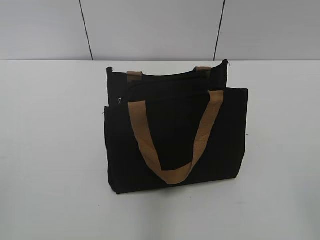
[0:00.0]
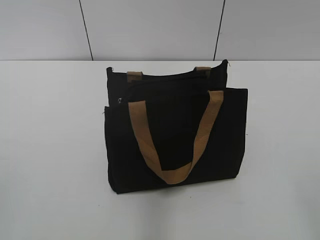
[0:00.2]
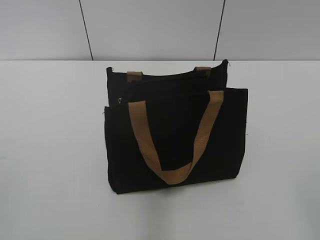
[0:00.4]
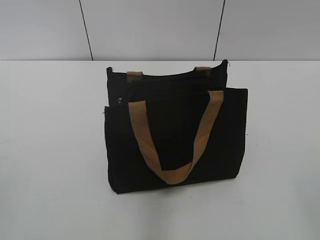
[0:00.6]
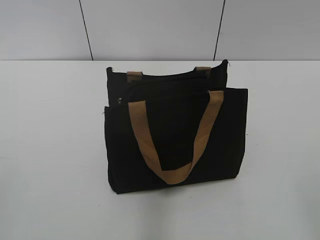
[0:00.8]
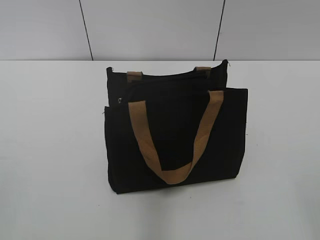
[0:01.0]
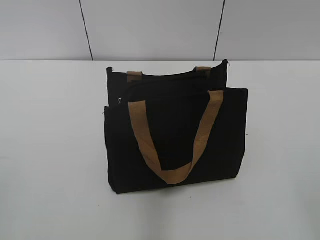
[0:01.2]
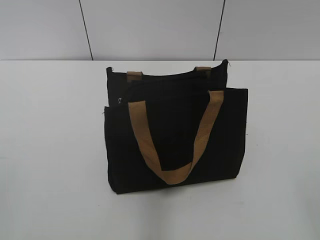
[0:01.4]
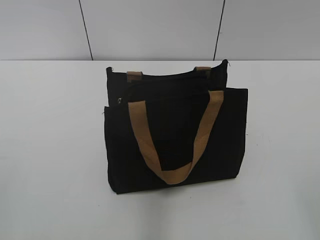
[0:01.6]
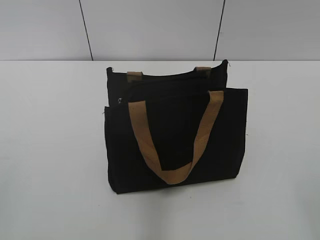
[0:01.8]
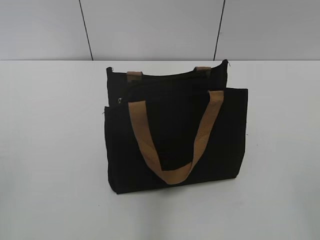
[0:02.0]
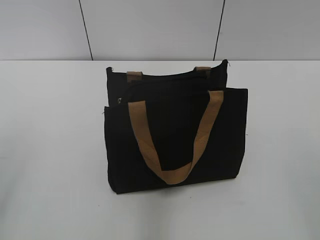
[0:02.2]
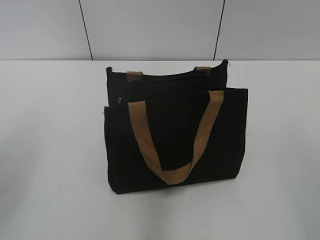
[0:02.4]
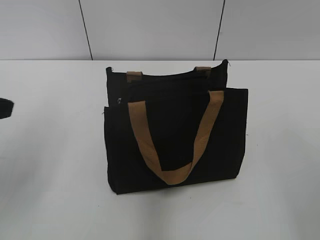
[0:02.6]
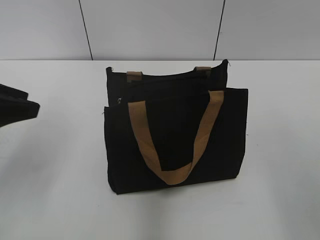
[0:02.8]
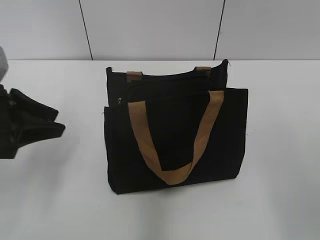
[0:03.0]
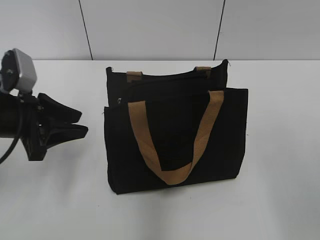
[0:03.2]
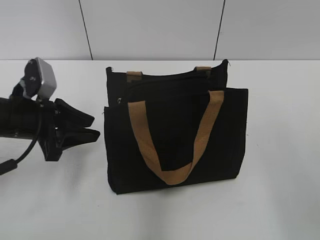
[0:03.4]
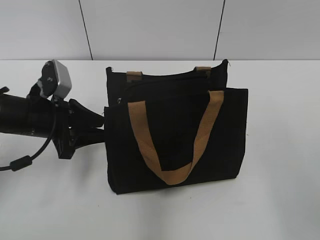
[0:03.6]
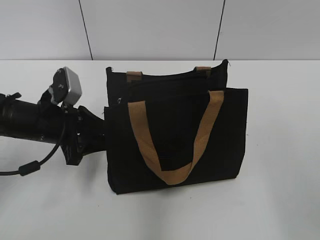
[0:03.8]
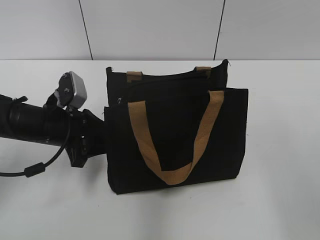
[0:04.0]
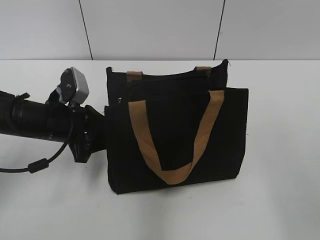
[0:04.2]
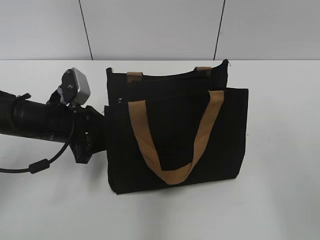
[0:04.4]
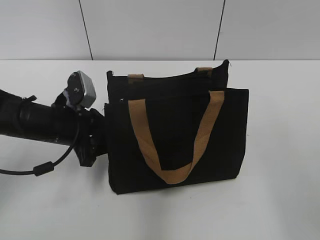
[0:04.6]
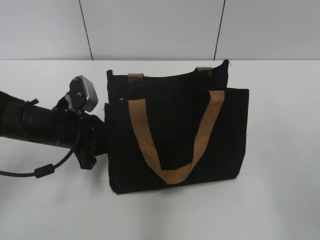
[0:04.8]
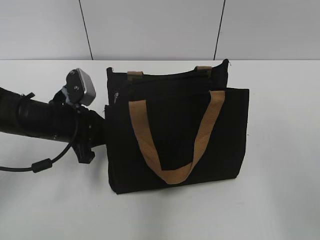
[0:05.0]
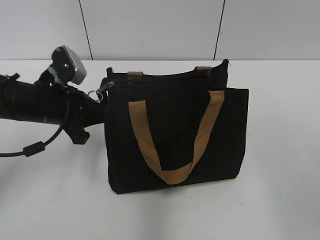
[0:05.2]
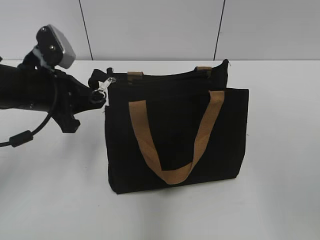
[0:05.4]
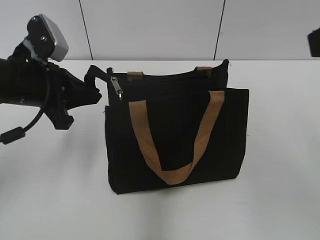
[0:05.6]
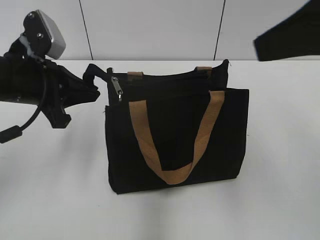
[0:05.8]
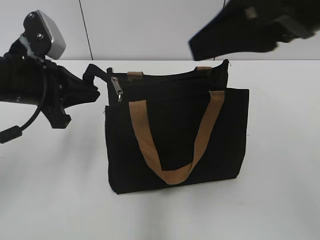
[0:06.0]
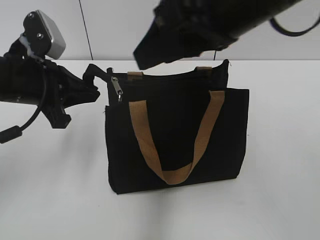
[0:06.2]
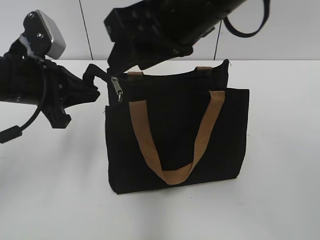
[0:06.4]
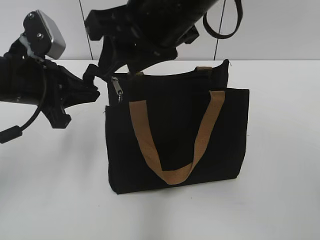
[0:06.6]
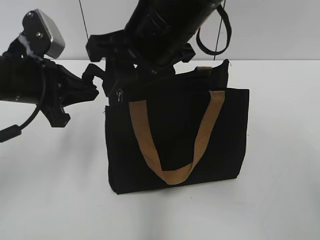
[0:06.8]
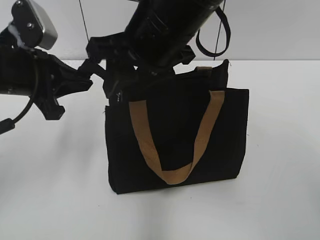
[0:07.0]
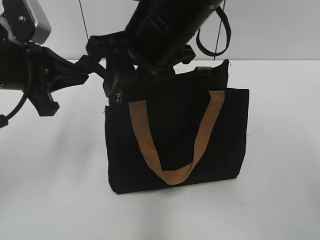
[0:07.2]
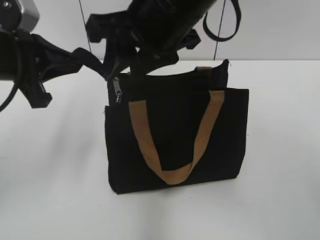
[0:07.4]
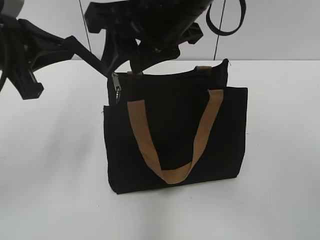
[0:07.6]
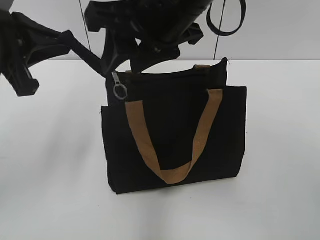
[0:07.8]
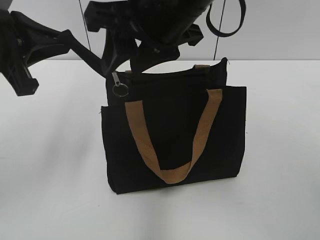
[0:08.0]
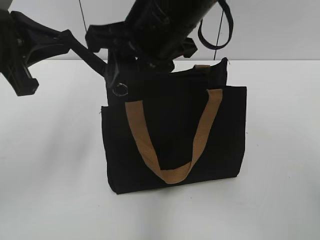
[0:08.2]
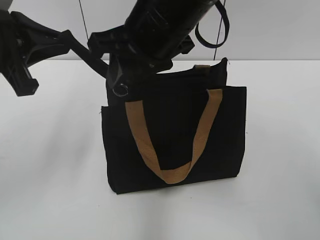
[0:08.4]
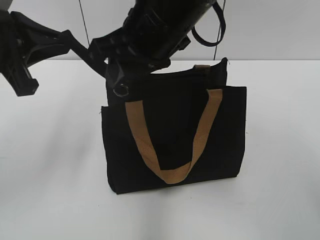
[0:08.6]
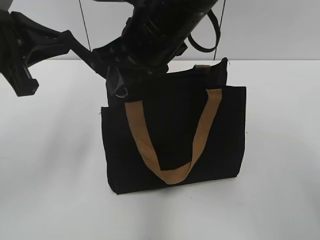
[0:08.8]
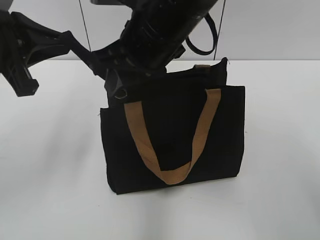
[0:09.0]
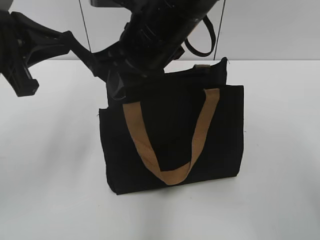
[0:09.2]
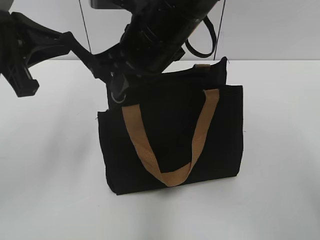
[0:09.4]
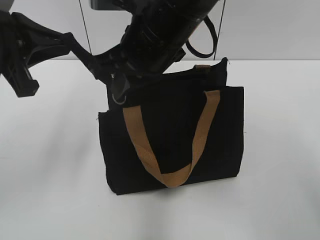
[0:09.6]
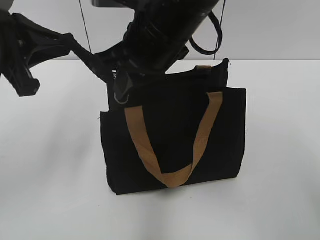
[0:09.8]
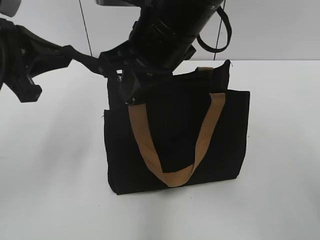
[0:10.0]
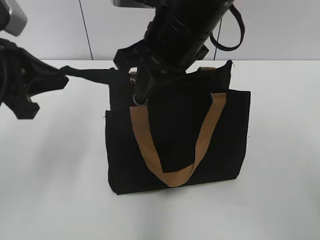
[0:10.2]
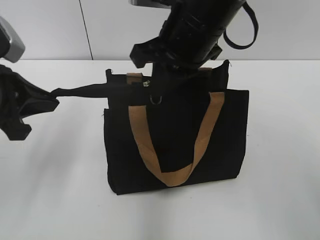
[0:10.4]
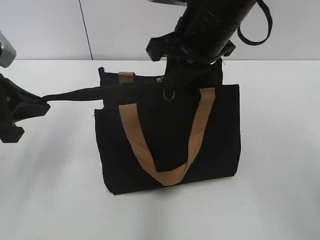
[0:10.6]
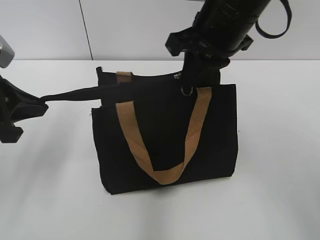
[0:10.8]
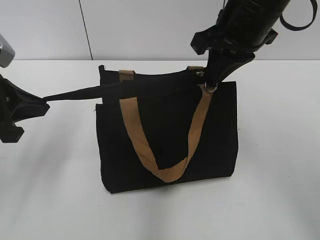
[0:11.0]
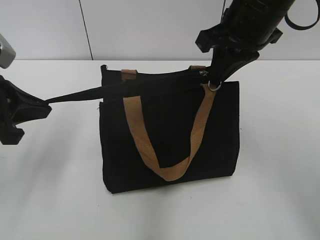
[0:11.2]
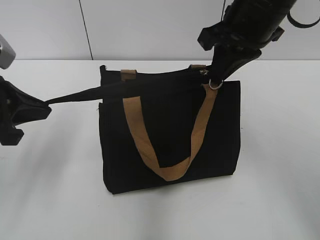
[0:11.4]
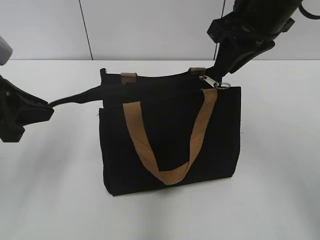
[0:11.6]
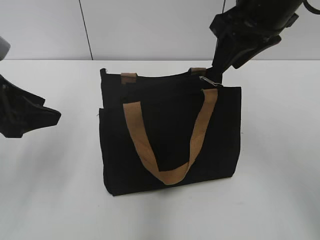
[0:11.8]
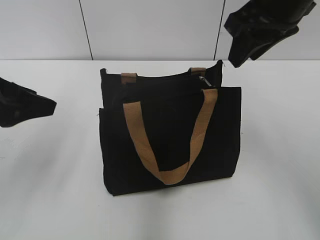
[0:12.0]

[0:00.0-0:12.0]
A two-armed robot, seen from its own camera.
Step, 0:00.0 to 0:11.4: Zip up the bag with your right hand.
0:01.6 to 0:03.0: The left gripper travels forward by some 25 cm.
0:03.0 to 0:04.4: The left gripper heads downward, to the right and forward, covering approximately 15 cm.
0:04.4 to 0:06.0: The left gripper moves upward, about 10 cm, and closes up, while the right gripper moves to the left and forward, about 15 cm.
0:06.0 to 0:07.6: The right gripper shifts approximately 15 cm to the left and forward; the left gripper is displaced upward by roughly 5 cm.
0:07.6 to 0:09.0: The right gripper changes place by roughly 5 cm.
0:09.0 to 0:10.4: The right gripper closes up. The left gripper shifts approximately 5 cm downward.
0:10.4 to 0:12.0: The right gripper goes some 10 cm to the right, and opens its fingers, while the left gripper opens up.

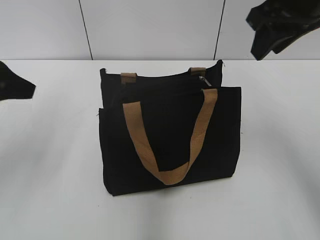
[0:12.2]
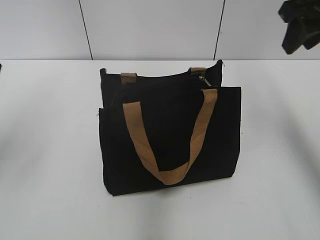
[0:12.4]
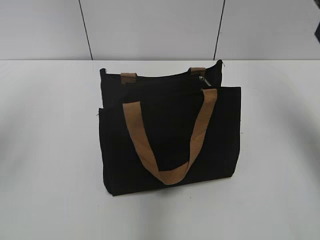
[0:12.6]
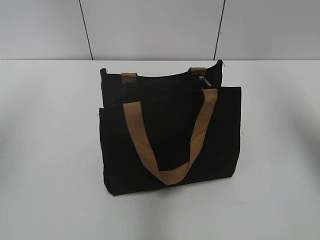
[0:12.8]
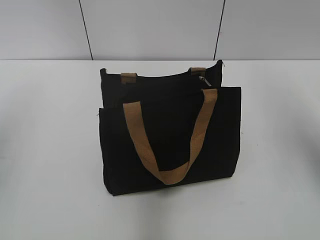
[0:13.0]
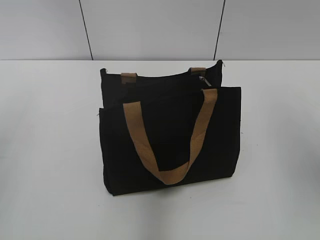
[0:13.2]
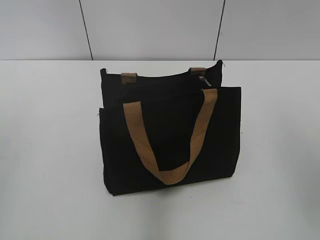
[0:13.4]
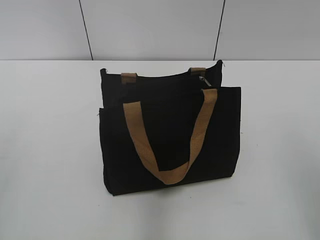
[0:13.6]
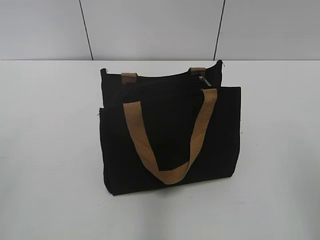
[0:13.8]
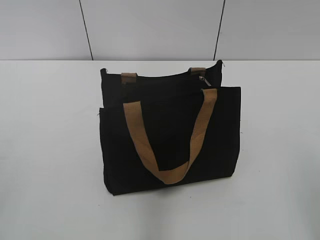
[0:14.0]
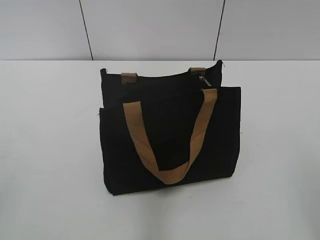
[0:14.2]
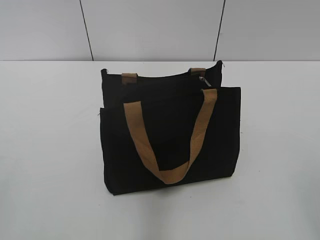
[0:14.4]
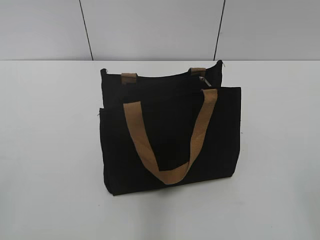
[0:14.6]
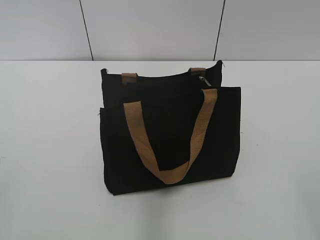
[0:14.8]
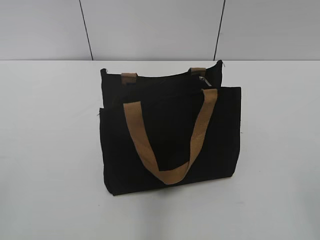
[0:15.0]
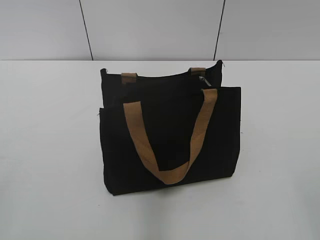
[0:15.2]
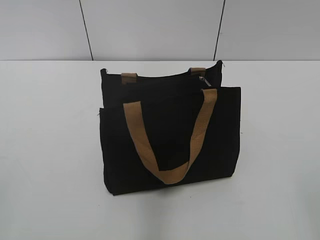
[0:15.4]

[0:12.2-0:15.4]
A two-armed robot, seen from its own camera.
0:12.2 to 0:13.8: The left gripper goes roughly 15 cm backward. Meanwhile the right gripper shifts about 25 cm backward.

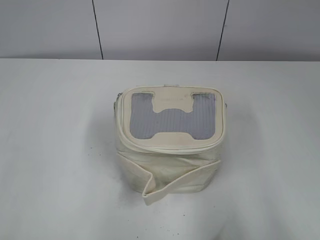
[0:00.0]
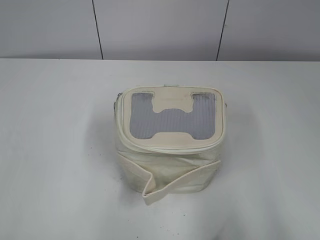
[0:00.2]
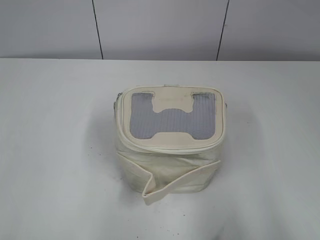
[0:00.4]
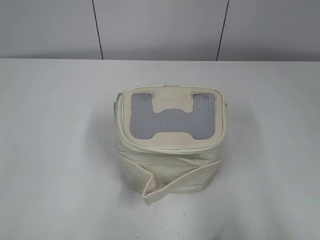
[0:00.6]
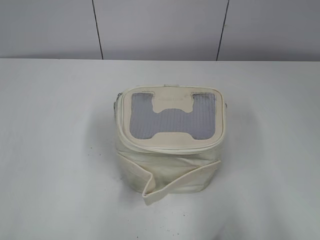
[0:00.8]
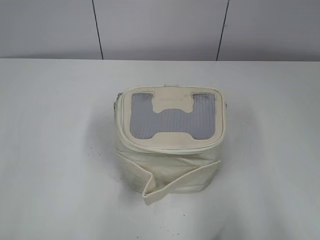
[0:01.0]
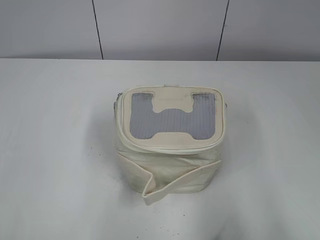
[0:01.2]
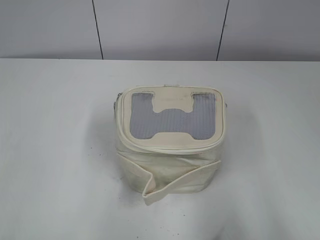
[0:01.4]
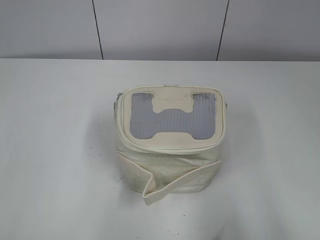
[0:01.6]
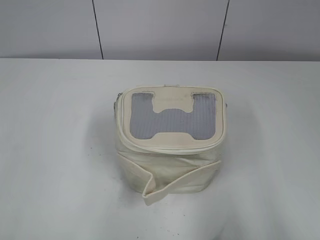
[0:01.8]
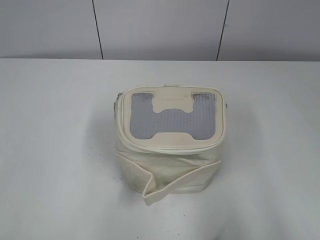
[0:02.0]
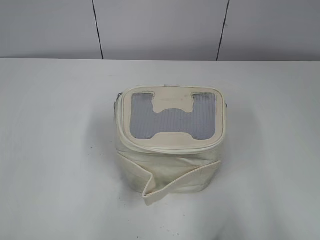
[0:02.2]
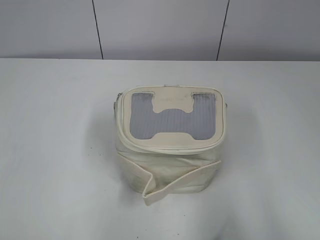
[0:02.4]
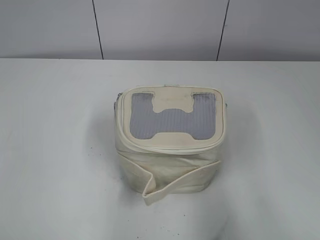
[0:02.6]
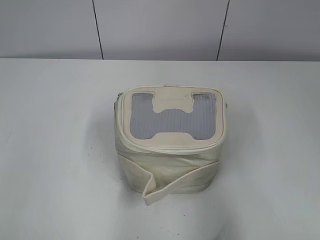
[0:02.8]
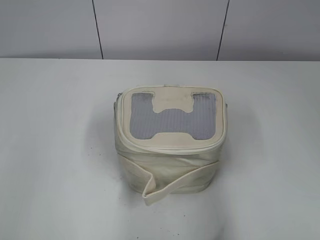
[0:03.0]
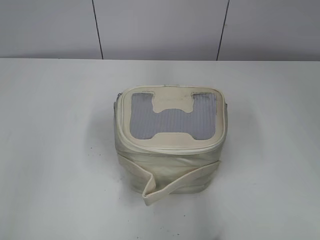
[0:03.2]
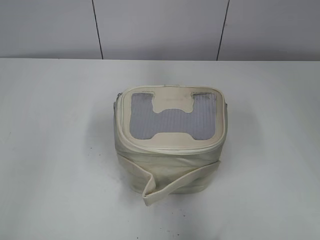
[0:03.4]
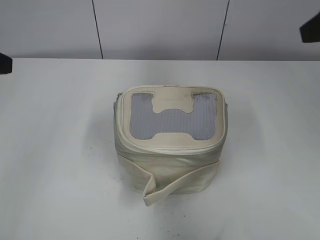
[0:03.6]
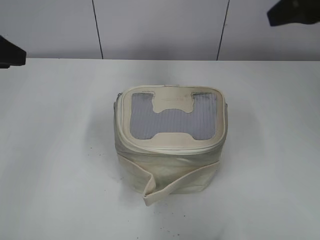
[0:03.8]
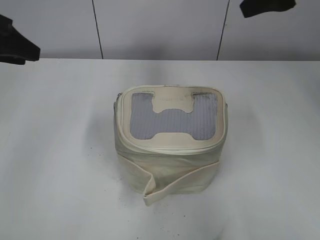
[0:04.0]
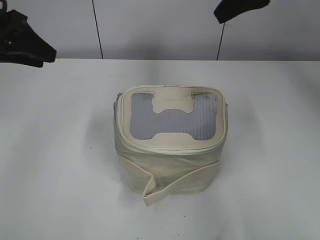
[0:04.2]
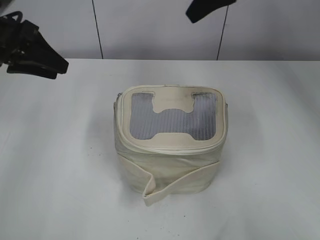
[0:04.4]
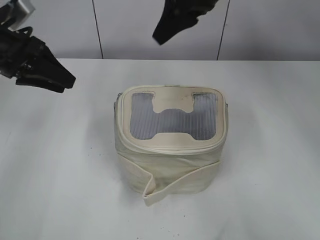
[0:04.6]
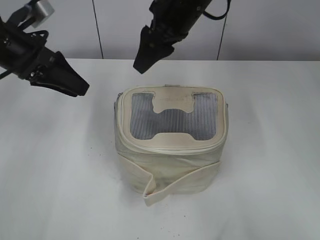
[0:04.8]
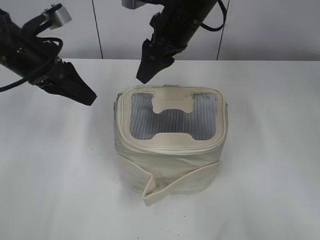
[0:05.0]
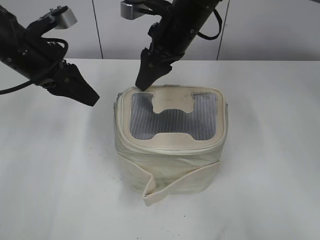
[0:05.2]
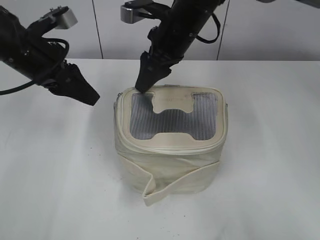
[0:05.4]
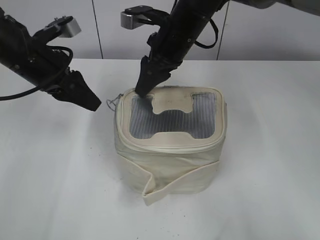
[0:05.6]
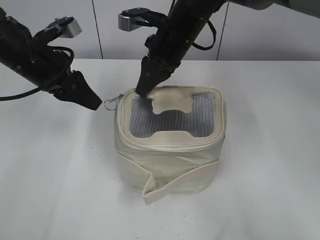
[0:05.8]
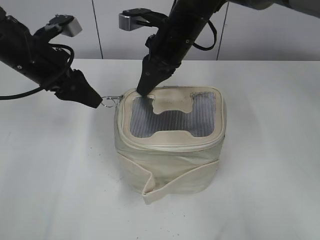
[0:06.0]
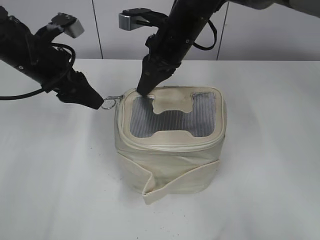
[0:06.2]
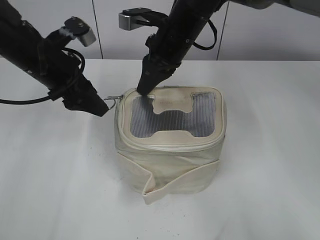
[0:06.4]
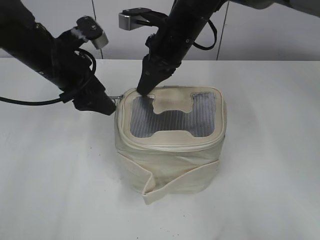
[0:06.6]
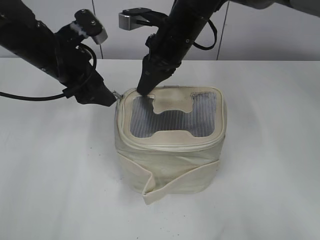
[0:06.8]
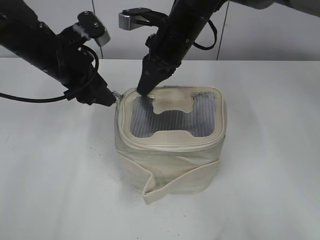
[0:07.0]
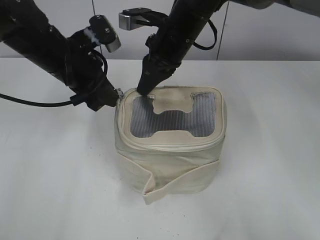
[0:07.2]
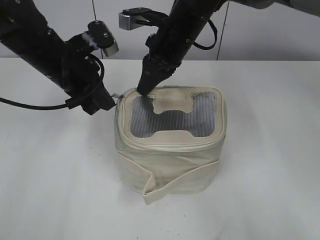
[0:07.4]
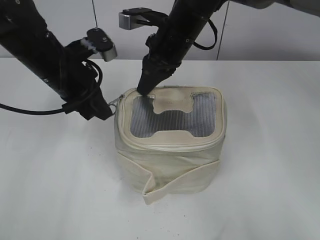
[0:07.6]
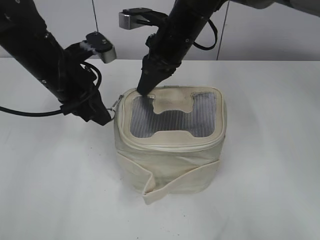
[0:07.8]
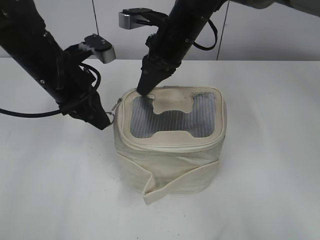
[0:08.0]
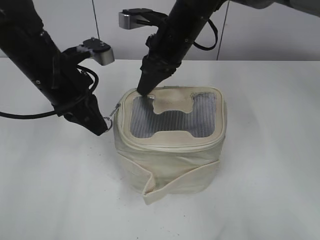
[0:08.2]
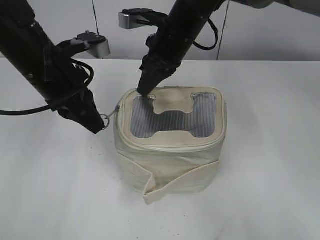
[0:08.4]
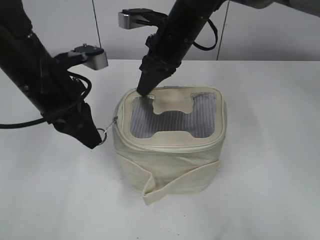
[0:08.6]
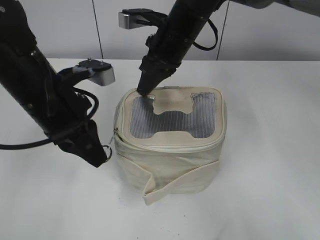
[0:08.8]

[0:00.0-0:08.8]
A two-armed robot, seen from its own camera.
0:01.4 to 0:03.0: The two grippers go about 10 cm forward.
0:03.0 to 0:04.4: The left gripper moves forward, some 25 cm. The right gripper shifts some 35 cm forward and to the left.
0:04.4 to 0:05.8: The left gripper is displaced to the right by roughly 5 cm, while the right gripper goes some 15 cm downward and to the left, and closes.
0:05.8 to 0:07.4: The left gripper shifts some 5 cm to the right, and closes its fingers.
0:07.4 to 0:08.8: The left gripper travels backward by approximately 10 cm.
